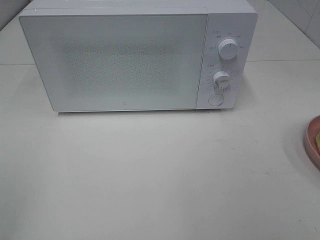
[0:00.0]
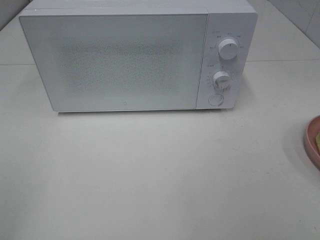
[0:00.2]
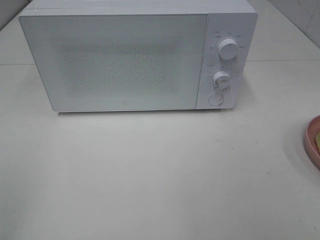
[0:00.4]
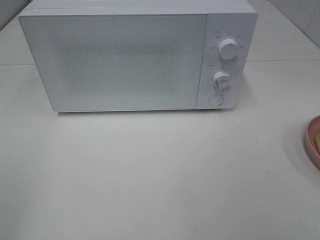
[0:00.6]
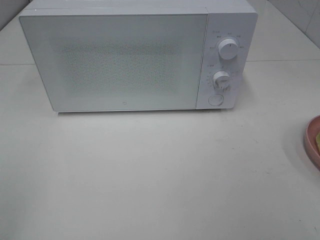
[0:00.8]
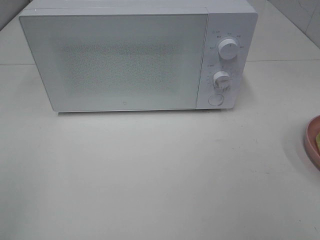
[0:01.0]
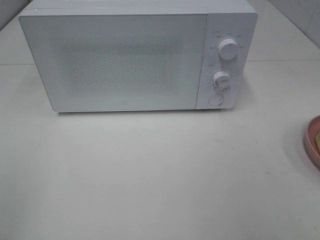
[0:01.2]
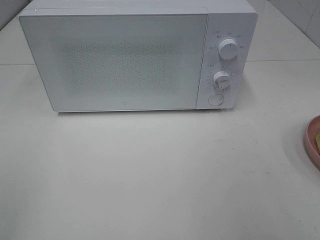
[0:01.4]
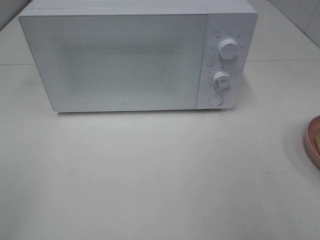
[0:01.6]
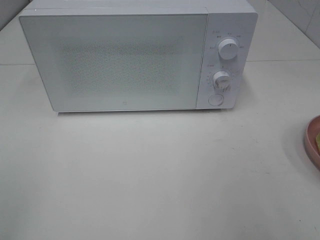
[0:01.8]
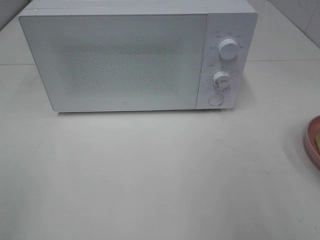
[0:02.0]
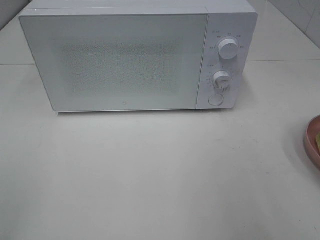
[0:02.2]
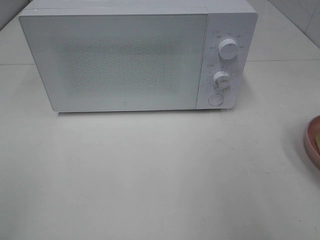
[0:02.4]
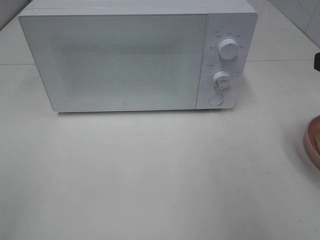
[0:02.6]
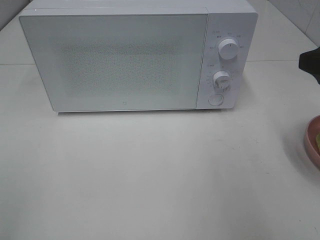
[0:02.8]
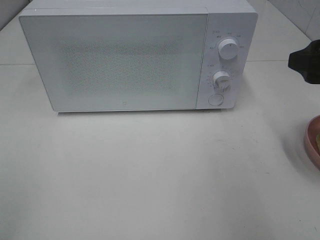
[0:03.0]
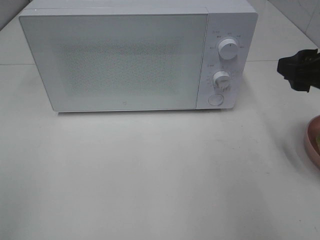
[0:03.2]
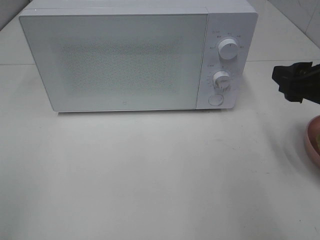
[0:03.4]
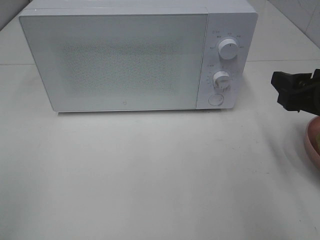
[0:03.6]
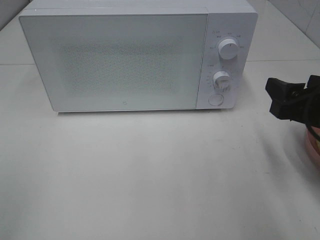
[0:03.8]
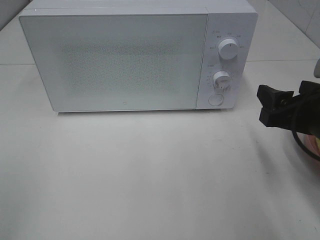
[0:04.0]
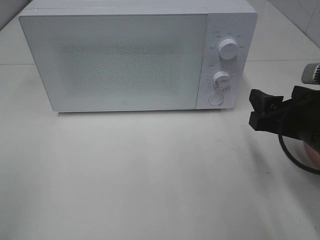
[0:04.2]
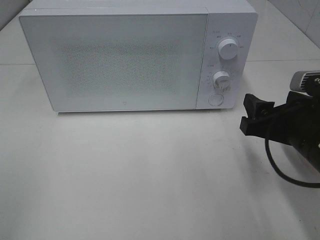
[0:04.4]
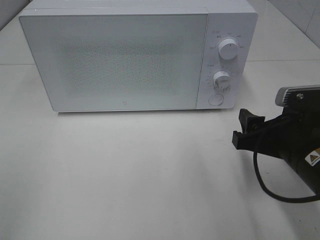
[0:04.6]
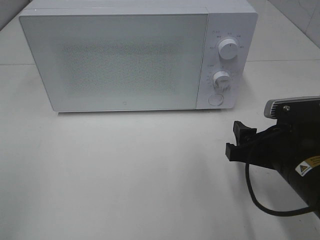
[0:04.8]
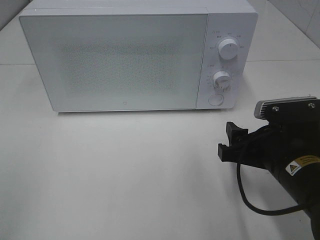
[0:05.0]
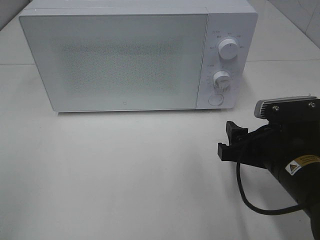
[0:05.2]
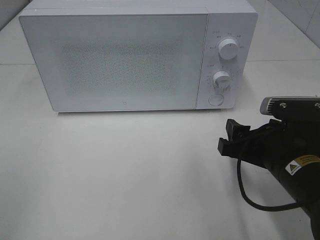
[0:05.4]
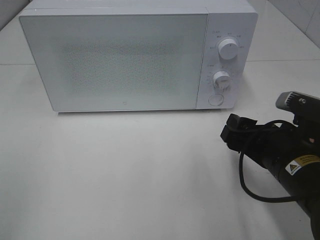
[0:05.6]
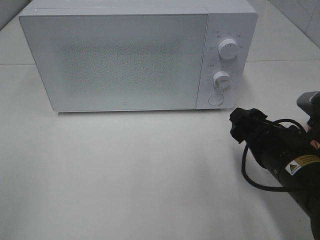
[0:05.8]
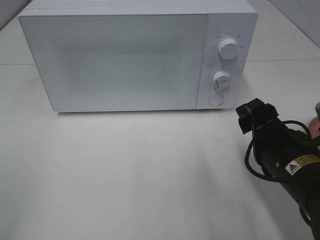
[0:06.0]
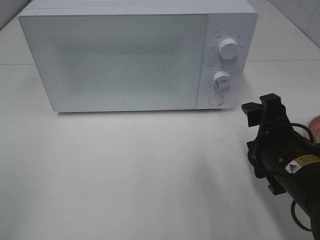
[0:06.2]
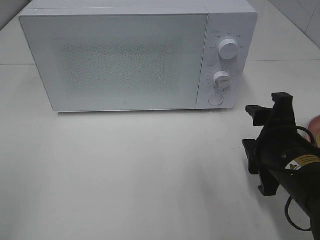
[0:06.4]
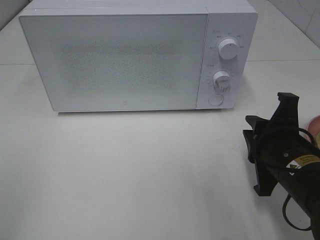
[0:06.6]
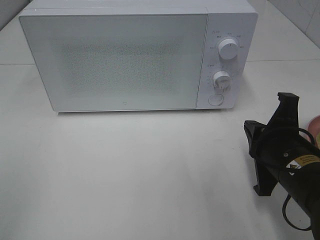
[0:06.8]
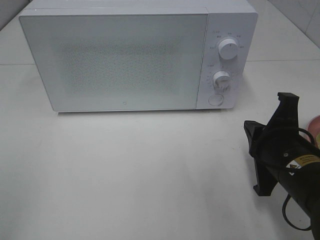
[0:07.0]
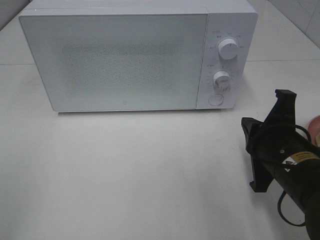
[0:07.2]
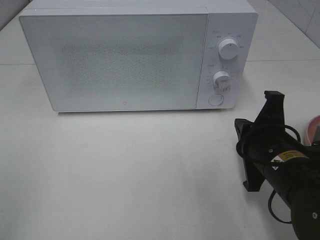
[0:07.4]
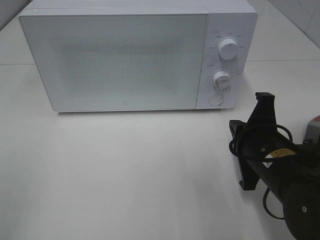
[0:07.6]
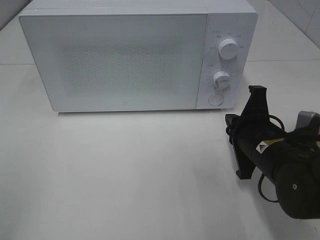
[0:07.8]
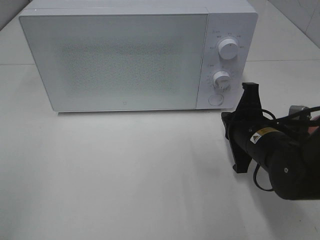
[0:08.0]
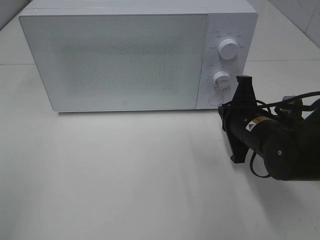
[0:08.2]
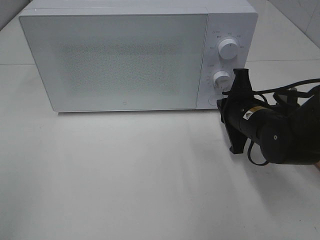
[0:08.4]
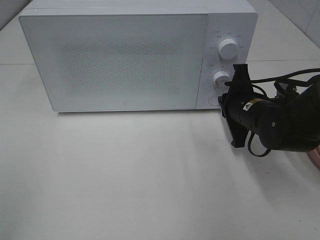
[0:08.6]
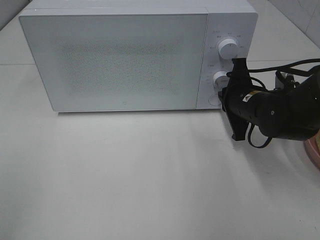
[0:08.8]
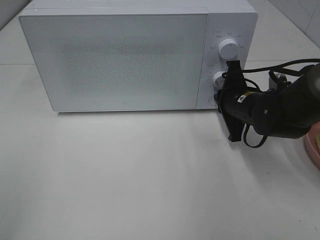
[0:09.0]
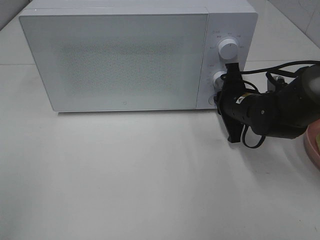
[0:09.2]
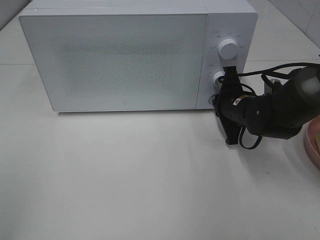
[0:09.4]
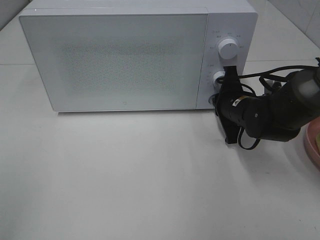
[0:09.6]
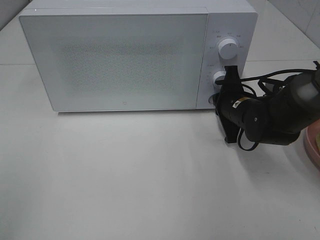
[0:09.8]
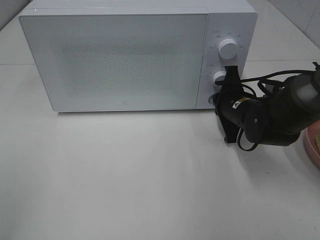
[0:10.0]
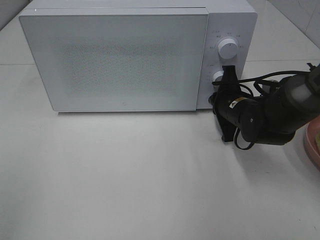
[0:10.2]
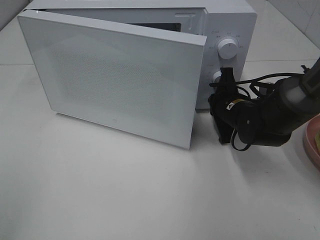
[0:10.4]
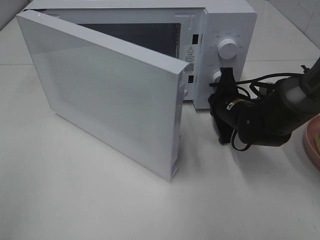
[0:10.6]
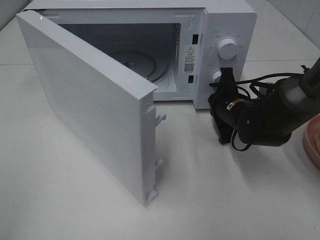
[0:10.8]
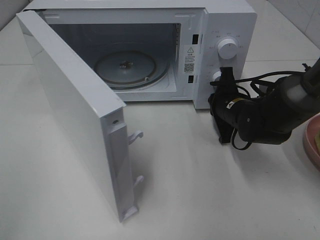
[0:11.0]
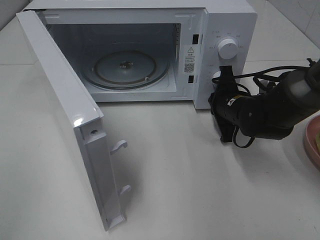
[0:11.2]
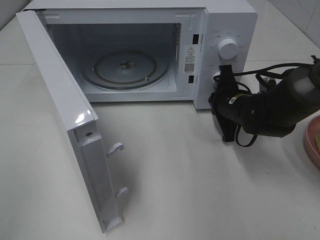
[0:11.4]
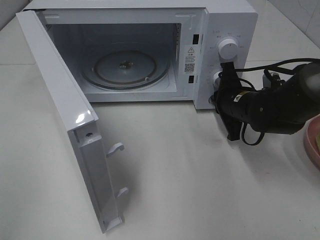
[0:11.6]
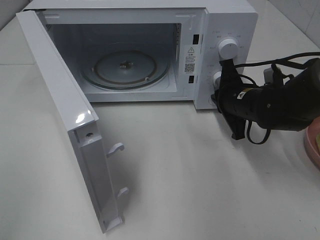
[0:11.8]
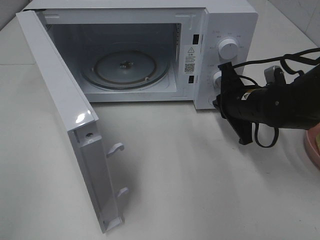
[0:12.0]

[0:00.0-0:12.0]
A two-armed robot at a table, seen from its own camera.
Task of the whole recording: Heat Sandwich.
Step, 0:00.0 to 0:11.8: Right hand: press the switch.
0:01.6 to 0:03.0: The right gripper travels forward by approximately 15 cm.
0:03.0 to 0:04.4: The right gripper heads downward and to the left, covering approximately 10 cm.
0:06.0 to 0:07.6: The right gripper closes up.
0:07.6 to 0:09.0: The right gripper goes approximately 15 cm forward.
0:09.0 to 0:10.4: There are only small adjustments of the grippers.

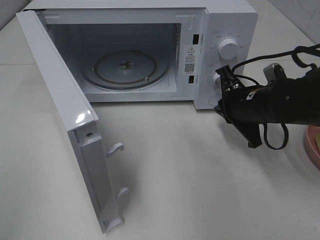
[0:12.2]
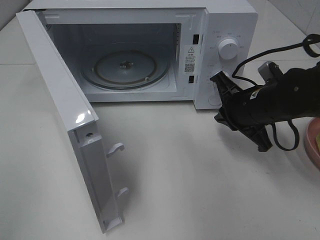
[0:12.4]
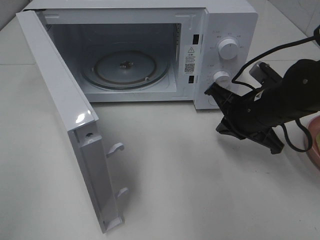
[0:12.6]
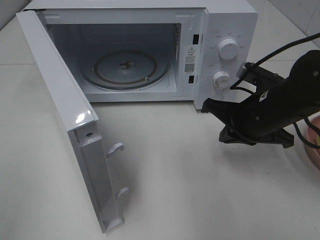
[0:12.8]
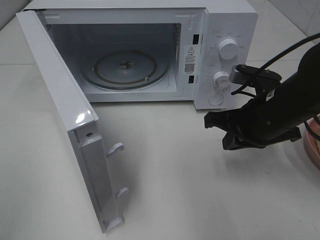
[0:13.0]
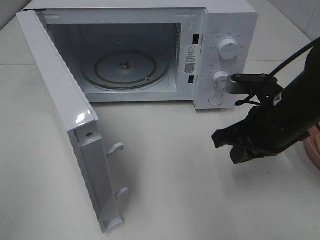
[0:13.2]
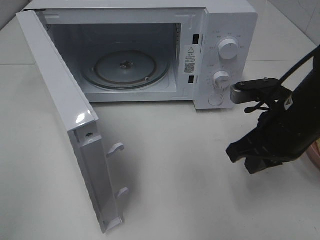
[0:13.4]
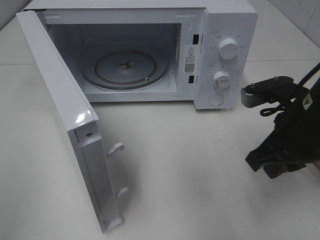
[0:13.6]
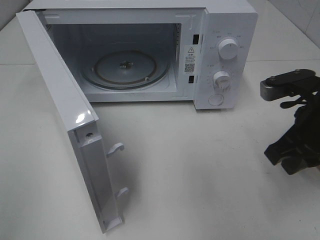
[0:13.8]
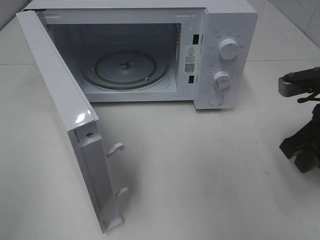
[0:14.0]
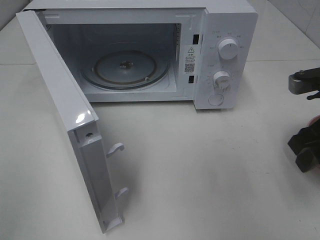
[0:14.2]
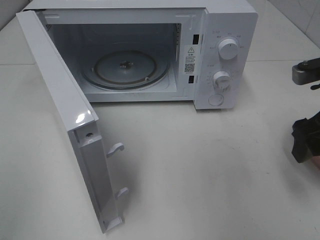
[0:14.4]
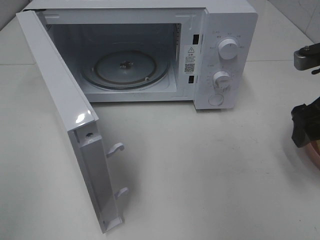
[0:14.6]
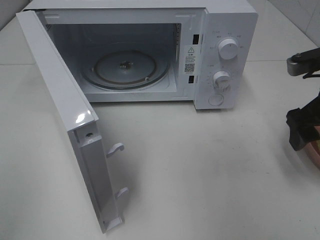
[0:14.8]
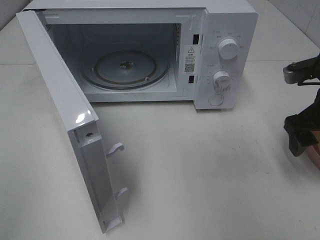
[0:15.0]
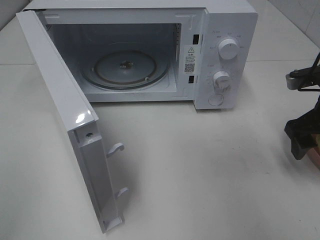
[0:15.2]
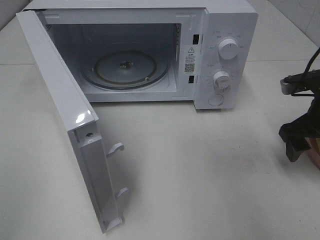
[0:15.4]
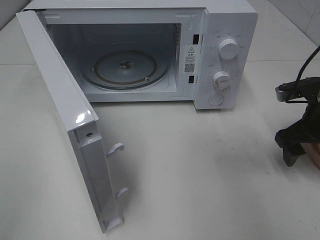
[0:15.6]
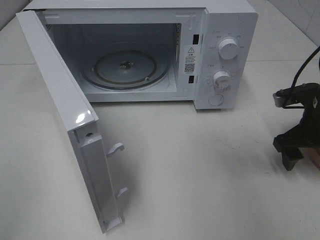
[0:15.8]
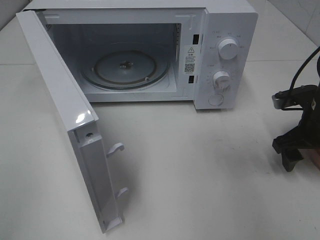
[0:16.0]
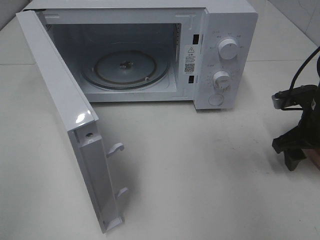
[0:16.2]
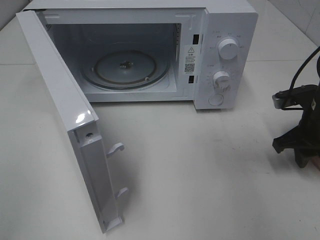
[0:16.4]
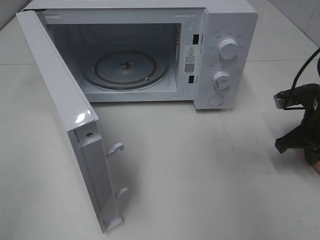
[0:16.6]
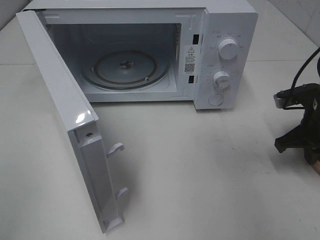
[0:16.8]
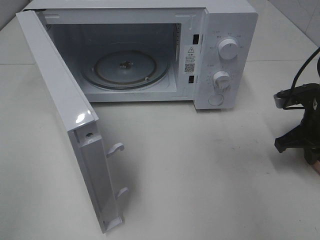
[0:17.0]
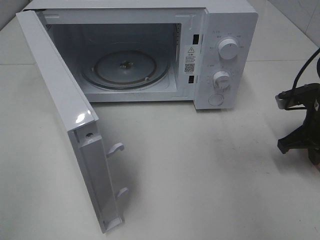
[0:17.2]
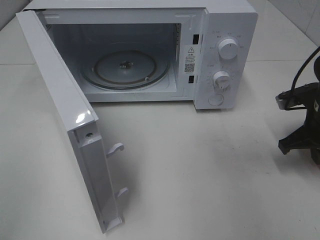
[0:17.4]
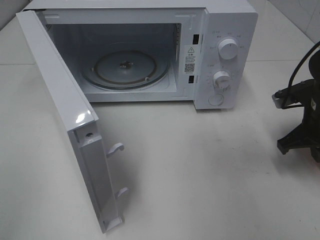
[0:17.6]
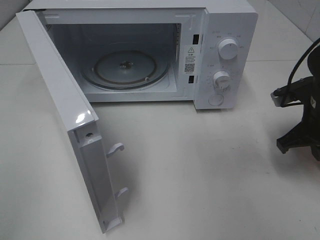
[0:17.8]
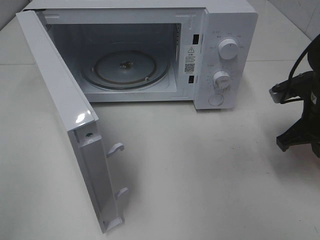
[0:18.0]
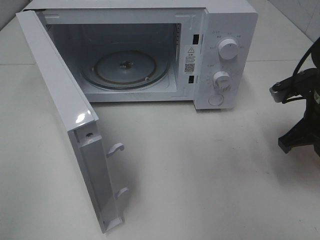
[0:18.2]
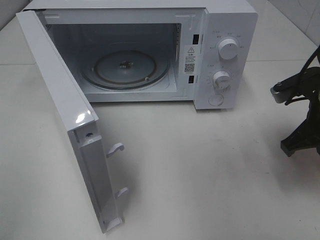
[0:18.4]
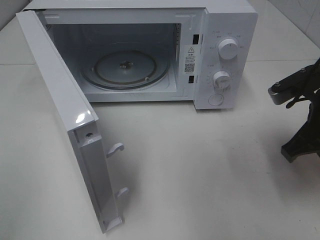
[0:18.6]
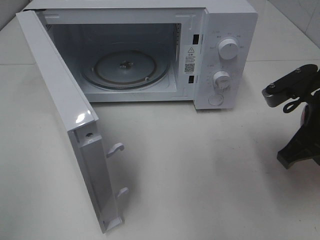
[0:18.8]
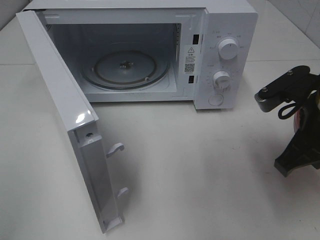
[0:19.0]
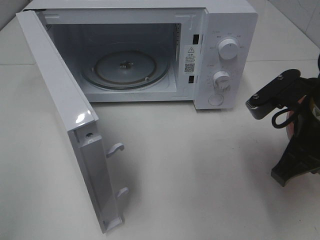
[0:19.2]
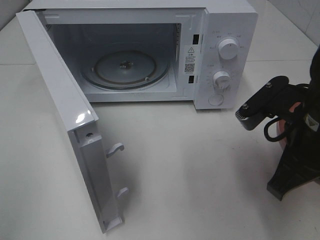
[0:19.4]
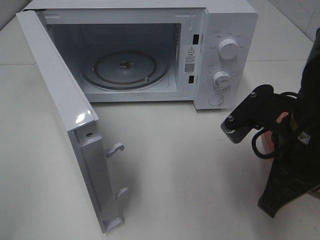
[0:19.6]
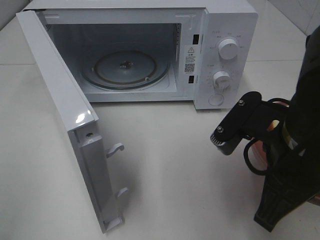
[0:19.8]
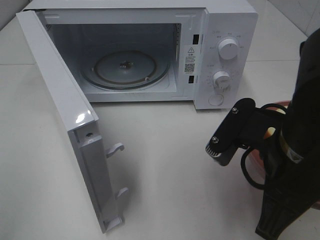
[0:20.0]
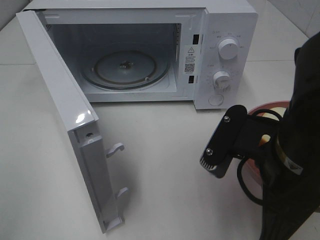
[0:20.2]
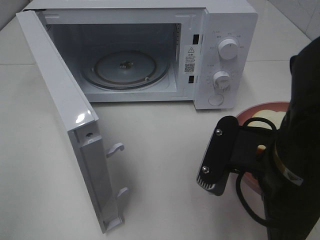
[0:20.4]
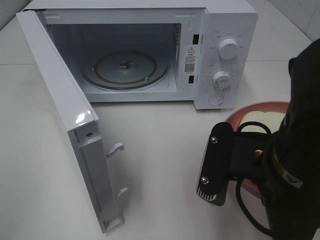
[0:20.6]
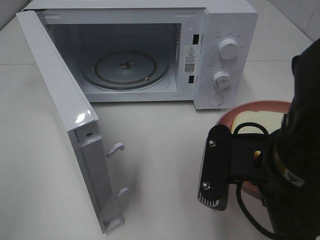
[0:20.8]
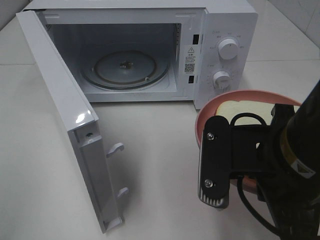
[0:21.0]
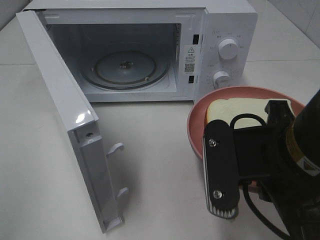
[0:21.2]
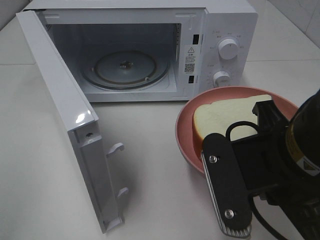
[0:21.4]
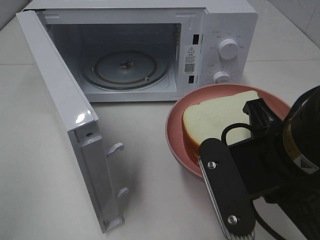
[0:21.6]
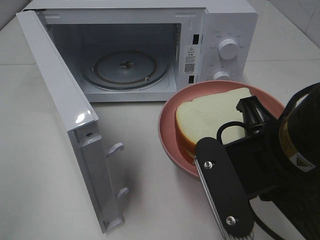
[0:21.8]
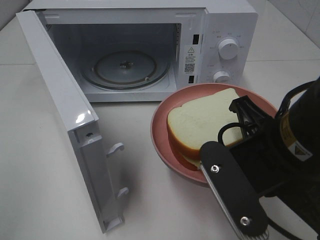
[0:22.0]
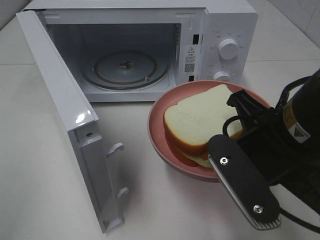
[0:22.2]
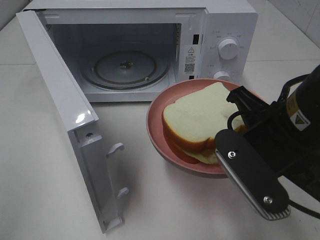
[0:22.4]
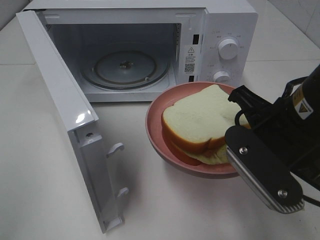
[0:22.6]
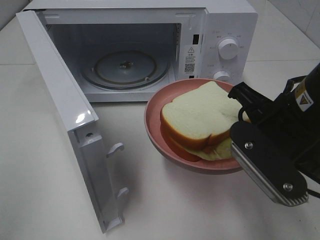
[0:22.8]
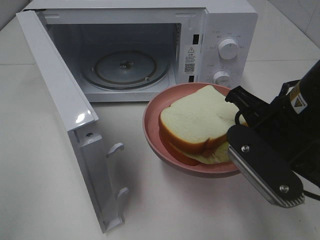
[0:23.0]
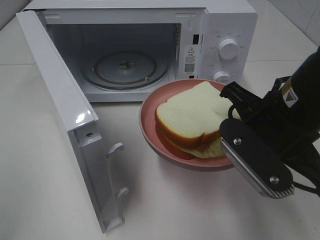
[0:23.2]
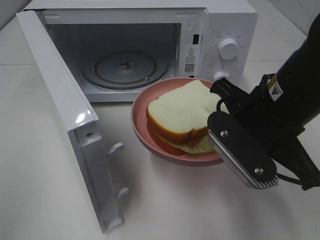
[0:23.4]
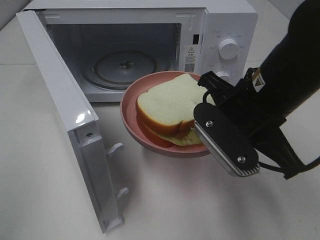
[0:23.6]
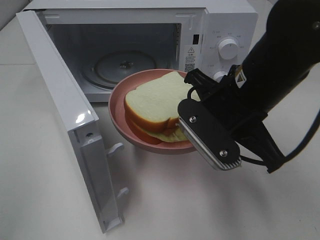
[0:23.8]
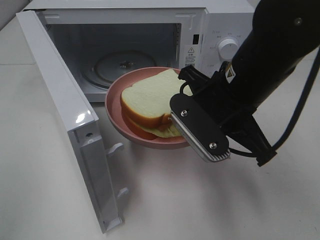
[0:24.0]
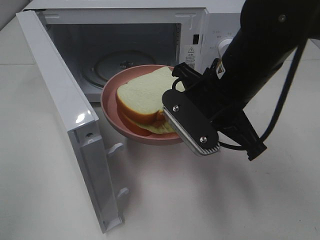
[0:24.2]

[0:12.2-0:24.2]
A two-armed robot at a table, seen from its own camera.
Task of the whole recording: Heat Sandwich.
Step, 0:12.2 to 0:16.4: Right hand: grab the plate with the sandwich.
0:12.2 to 0:13.8: The right gripper shifts roughly 10 cm backward and upward.
0:13.8 to 0:15.2: The right gripper travels forward and to the right by approximately 10 cm, and opens its fingers.
0:15.2 to 0:16.6: The right gripper travels downward by roughly 5 cm, and closes its fingers.
0:16.6 to 0:18.2: The right gripper changes place by about 5 cm.
0:18.2 to 0:19.8: The right gripper goes approximately 15 cm to the left and backward.
0:21.2 to 0:22.6: The right gripper moves roughly 5 cm.
0:22.6 to 0:24.2: The right gripper goes some 10 cm forward and to the left.
